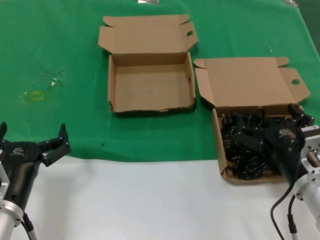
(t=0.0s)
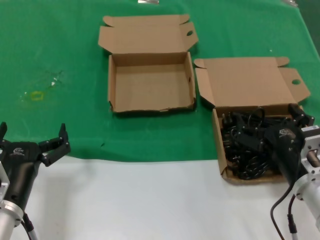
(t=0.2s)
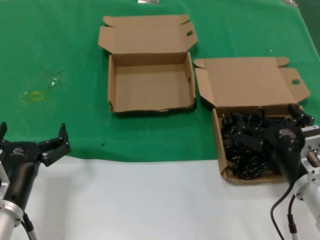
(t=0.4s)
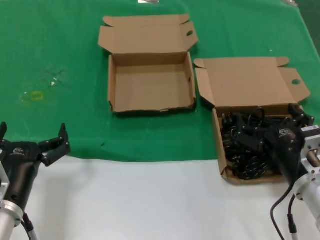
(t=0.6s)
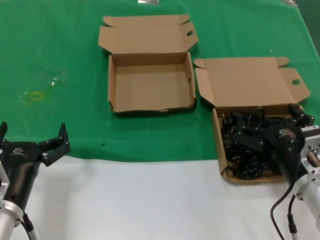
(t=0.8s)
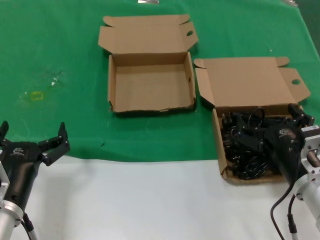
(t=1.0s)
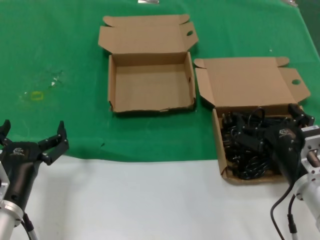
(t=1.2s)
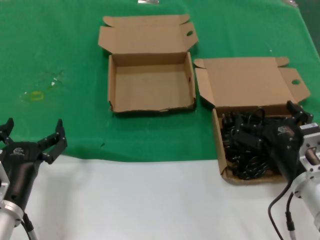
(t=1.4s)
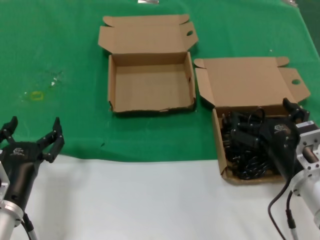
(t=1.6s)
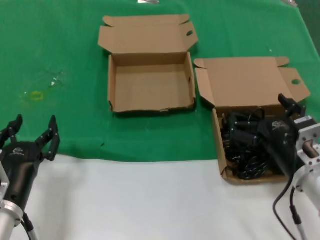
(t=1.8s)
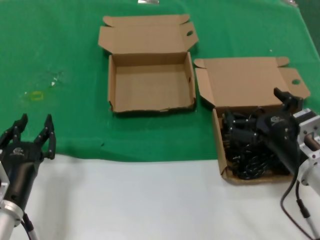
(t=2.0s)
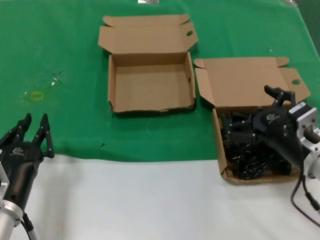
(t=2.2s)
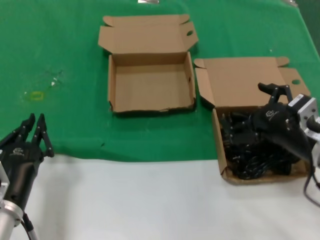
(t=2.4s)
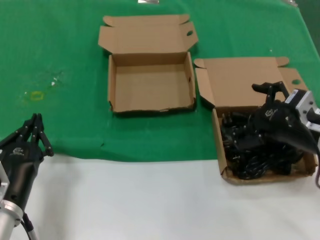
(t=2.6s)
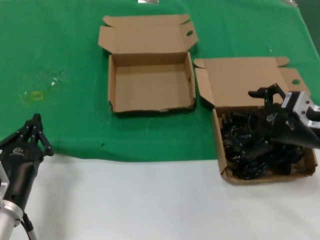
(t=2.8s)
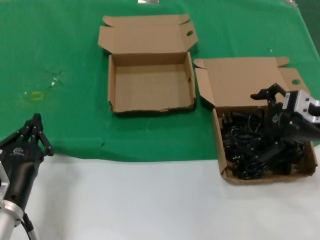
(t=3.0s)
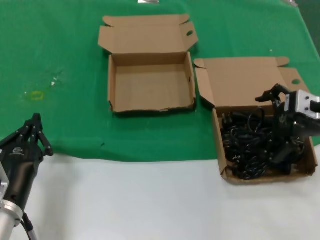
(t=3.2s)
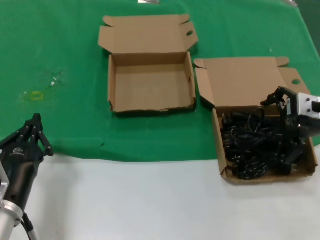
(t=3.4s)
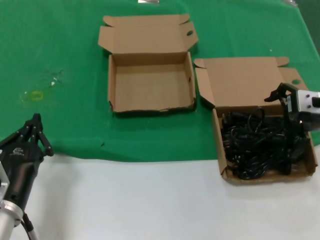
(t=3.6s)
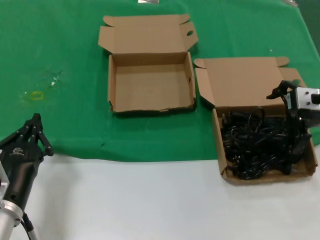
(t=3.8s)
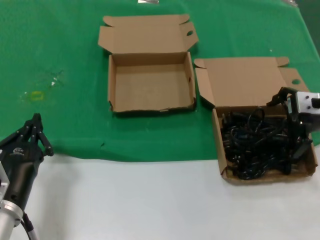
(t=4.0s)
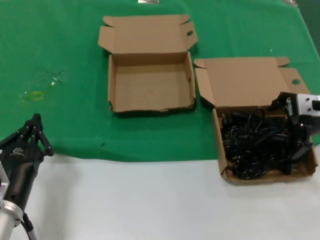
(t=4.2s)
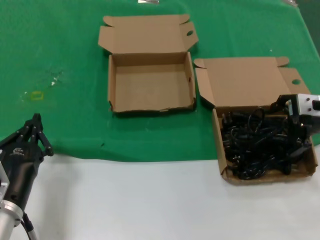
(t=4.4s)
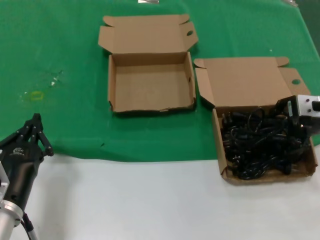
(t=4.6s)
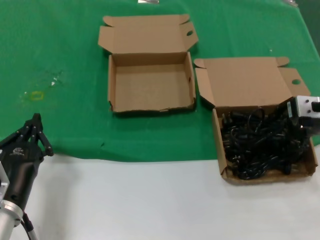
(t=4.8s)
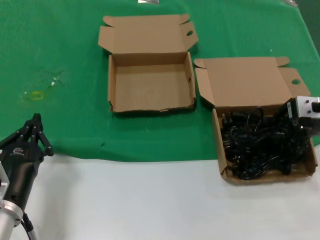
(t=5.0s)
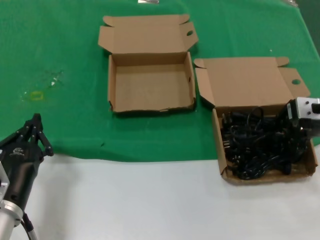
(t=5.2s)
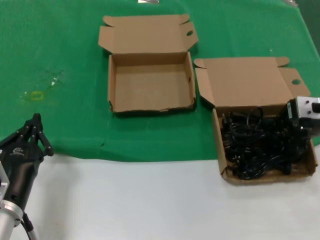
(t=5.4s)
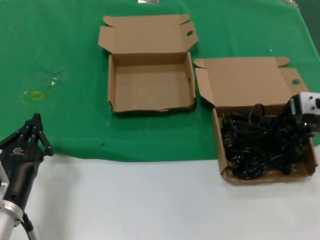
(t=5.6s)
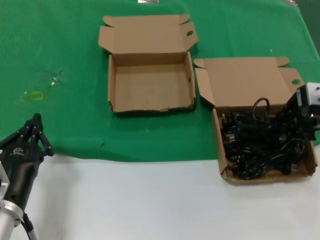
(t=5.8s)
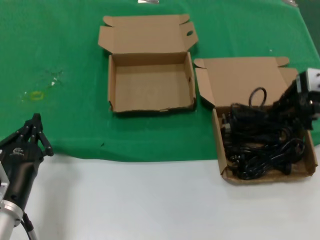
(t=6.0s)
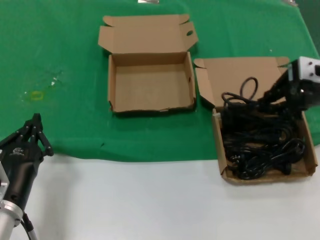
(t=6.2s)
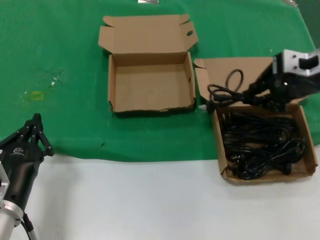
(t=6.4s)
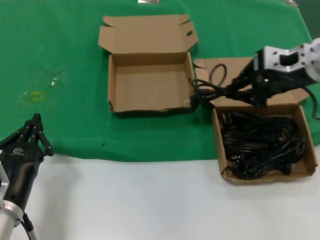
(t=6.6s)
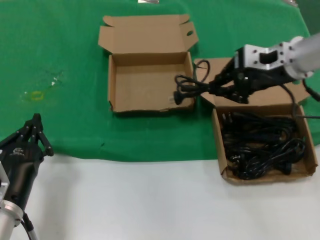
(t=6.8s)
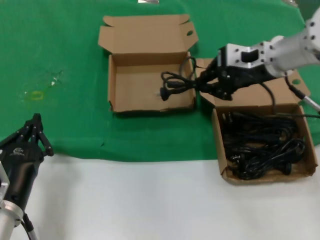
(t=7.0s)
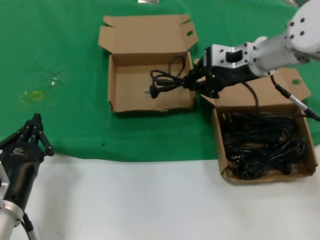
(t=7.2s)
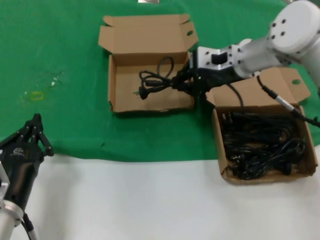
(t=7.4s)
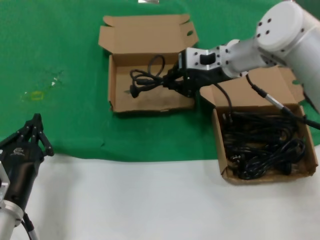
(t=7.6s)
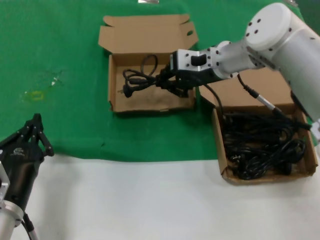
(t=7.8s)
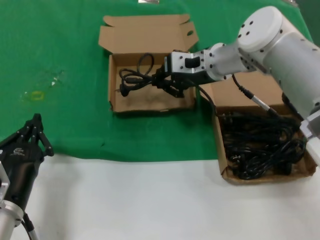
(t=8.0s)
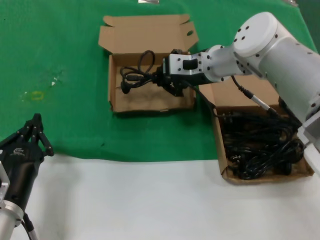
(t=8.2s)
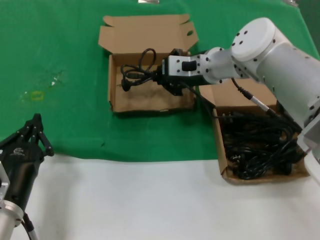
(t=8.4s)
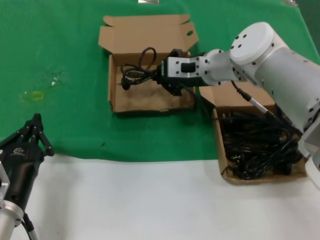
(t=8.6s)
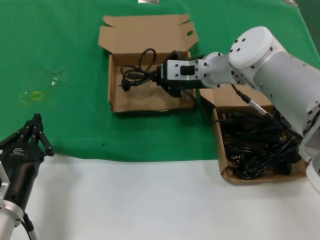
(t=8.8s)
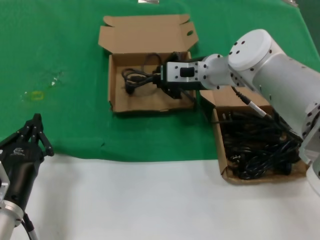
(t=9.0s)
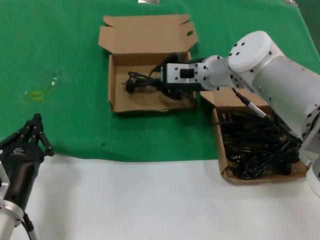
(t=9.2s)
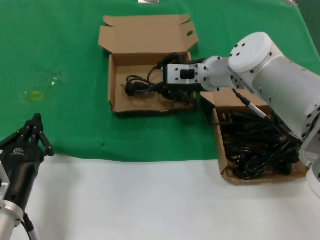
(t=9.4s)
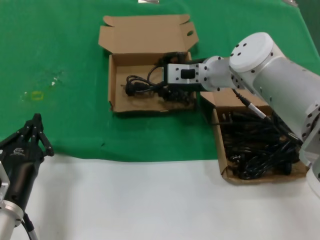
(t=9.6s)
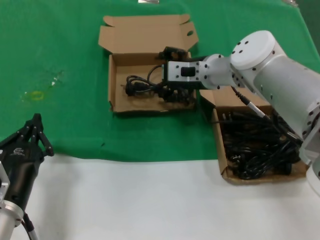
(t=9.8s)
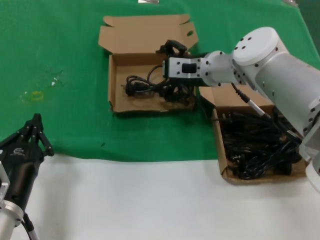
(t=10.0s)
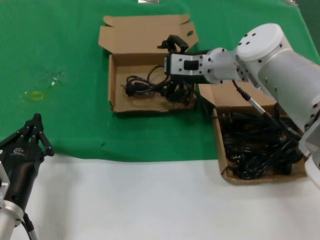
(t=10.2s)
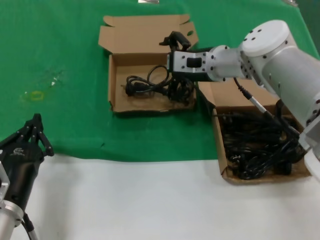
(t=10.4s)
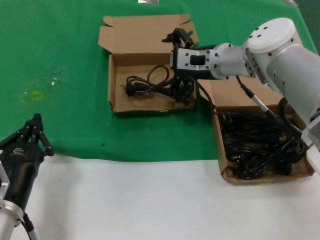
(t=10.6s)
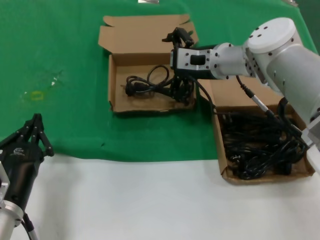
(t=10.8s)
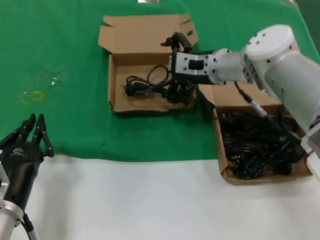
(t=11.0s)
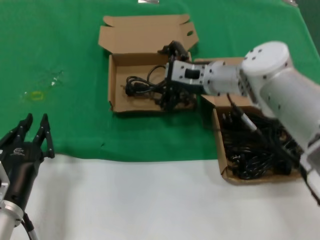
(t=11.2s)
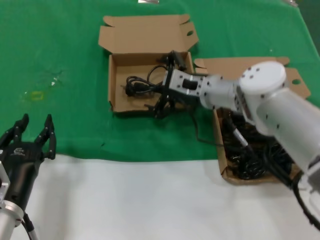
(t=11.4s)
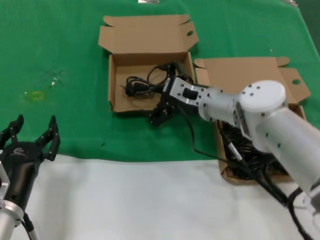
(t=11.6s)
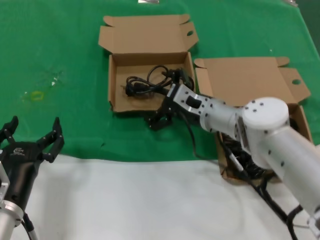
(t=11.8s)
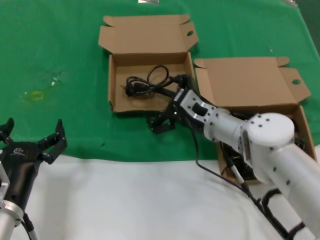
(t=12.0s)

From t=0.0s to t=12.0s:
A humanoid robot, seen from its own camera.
Task of the whole recording: take the parts from the box containing them and put them into an empty box.
Step, from t=0.0s to t=5.0s: Grasp the data cable.
Step, from t=5.4s to t=9.2s: Place the data cable in the another box.
From t=0.0s to t=1.6s: Both hands stay about where they are.
From t=1.6s to t=3.0s: The right hand is displaced upward, to the right and forward by about 15 cm.
From t=3.0s to t=4.4s: The right hand goes roughly 5 cm forward.
From t=4.4s to t=6.0s: The right hand is displaced upward by about 5 cm.
From t=6.0s to t=7.6s: The right hand moves to the left and forward, approximately 20 cm.
From t=7.6s to t=9.0s: The right hand travels downward by roughly 5 cm.
From t=9.0s to t=10.4s: There are only small adjustments of the hands.
From t=10.4s to t=12.0s: The right hand travels downward and backward by about 15 cm.

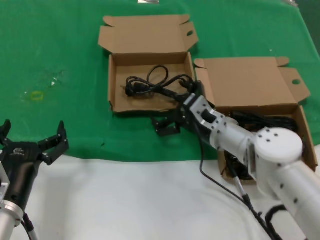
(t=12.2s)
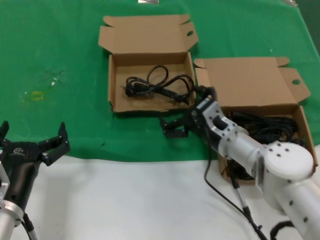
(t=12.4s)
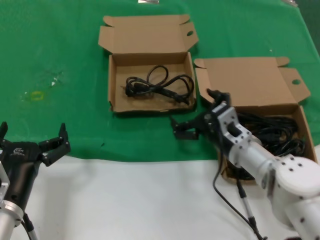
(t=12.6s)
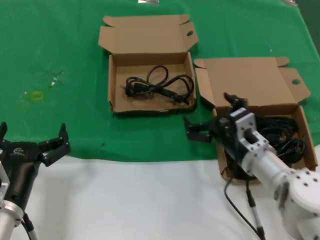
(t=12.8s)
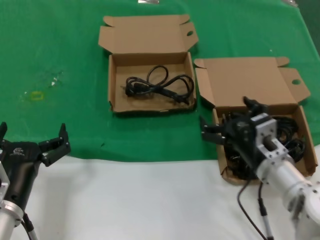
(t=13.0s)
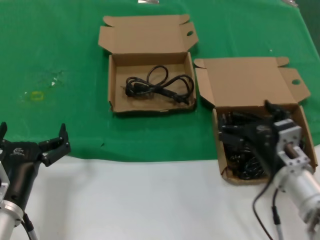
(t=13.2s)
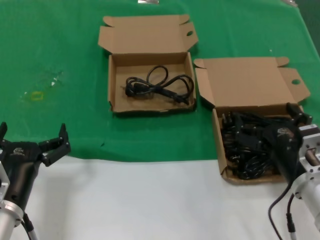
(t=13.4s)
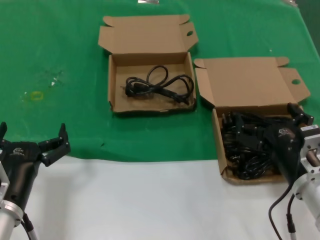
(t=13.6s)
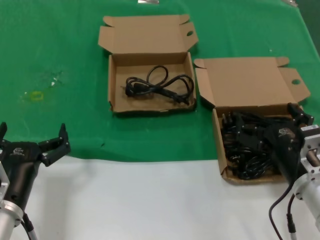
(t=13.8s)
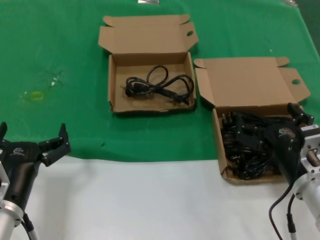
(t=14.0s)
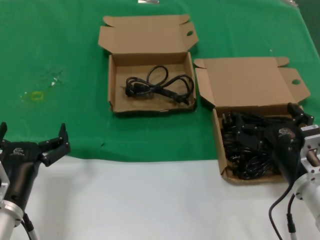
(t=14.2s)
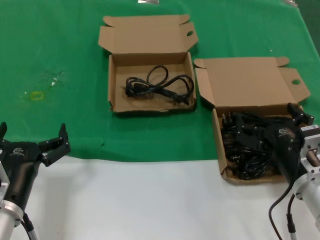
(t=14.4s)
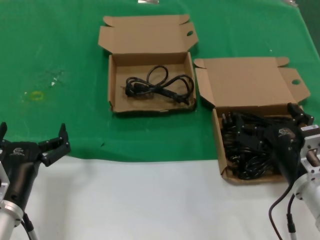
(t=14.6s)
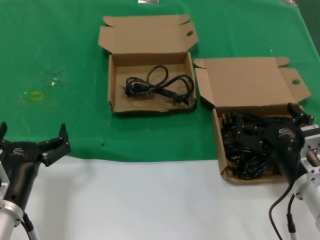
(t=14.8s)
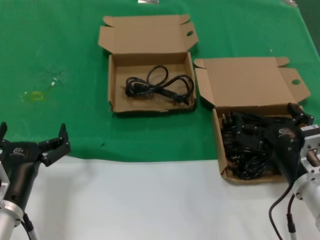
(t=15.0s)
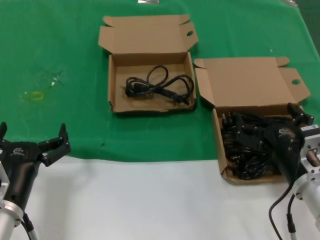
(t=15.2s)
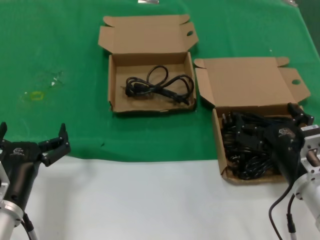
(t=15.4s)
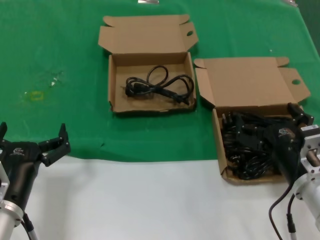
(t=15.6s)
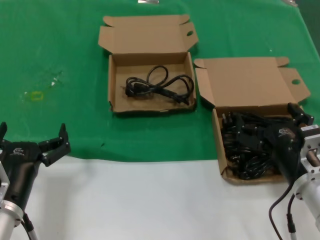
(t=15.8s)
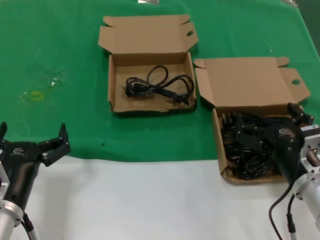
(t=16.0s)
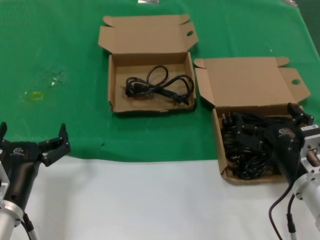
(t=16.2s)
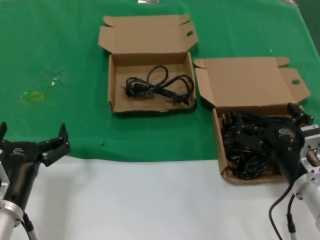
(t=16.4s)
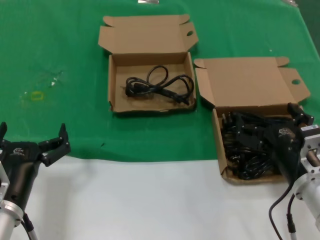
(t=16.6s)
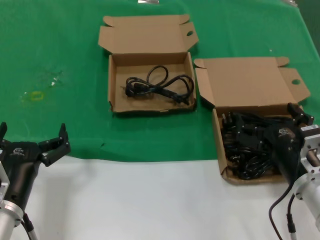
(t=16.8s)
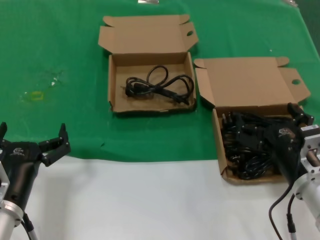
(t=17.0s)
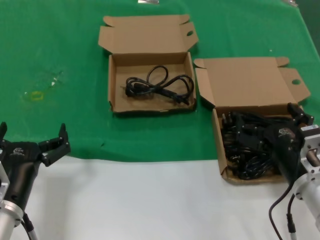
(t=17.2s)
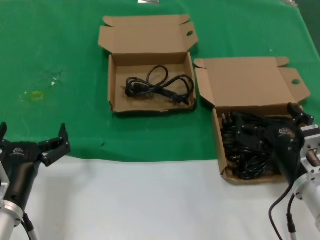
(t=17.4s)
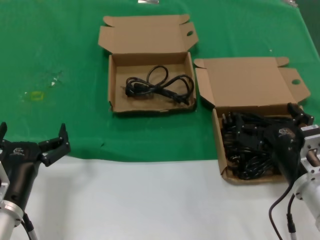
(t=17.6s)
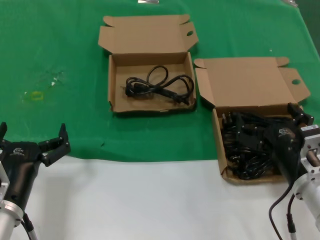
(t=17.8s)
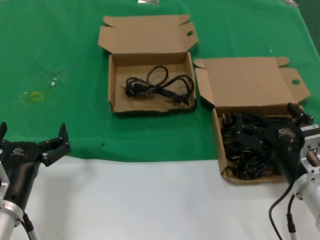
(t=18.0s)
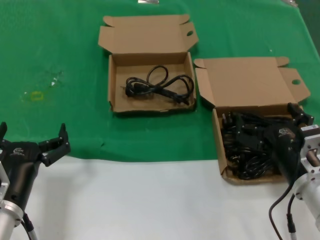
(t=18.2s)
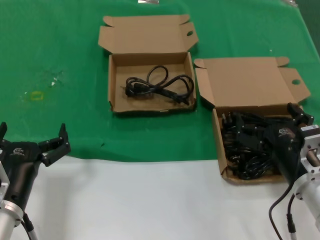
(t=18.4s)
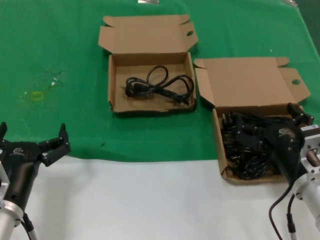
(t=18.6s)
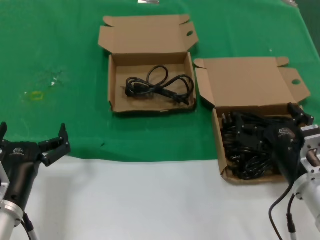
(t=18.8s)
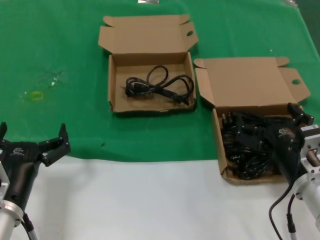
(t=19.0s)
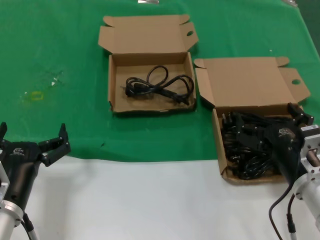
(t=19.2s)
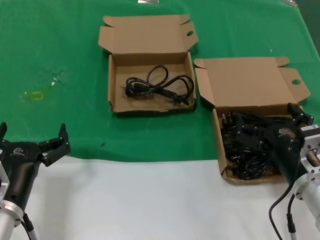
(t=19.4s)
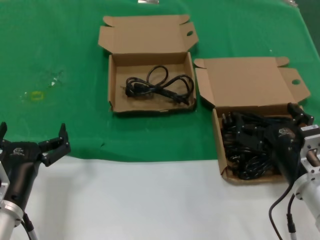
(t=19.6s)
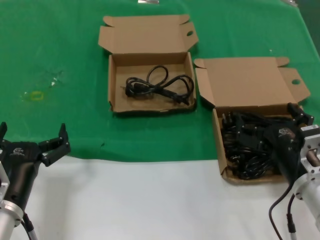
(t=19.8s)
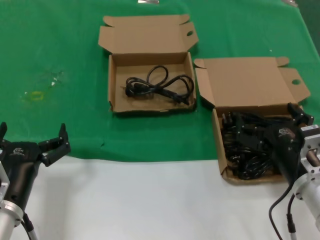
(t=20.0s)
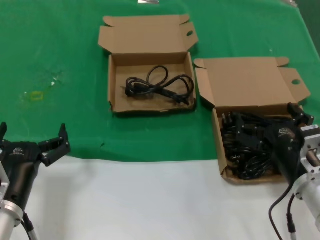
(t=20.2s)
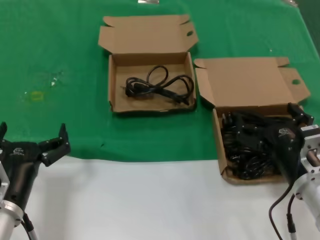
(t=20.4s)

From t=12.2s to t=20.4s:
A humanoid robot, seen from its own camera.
Task of the whole recording: take the parts from the box containing them and put them into an empty box.
From t=12.2s to t=13.8s: The right hand shifts approximately 20 cm backward and to the right.
From t=13.8s to t=20.4s: Both hands stay put.
